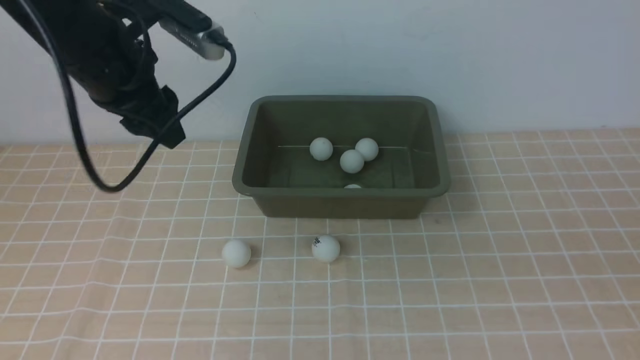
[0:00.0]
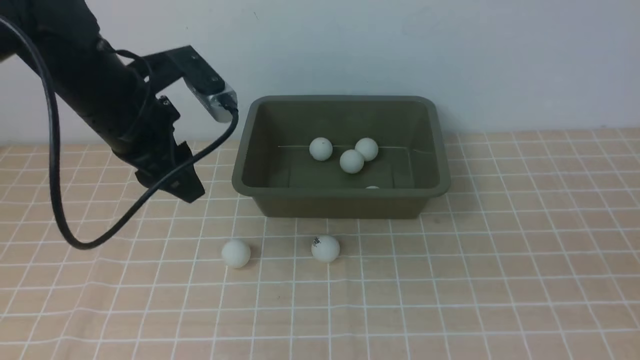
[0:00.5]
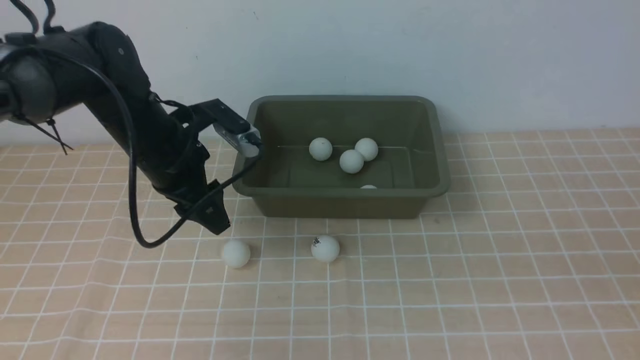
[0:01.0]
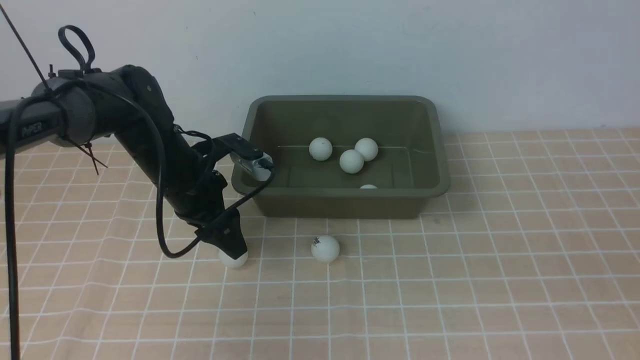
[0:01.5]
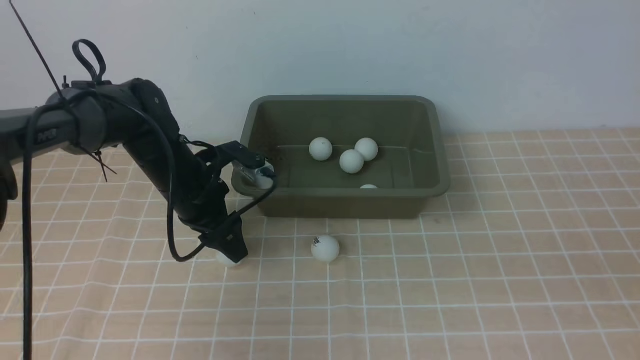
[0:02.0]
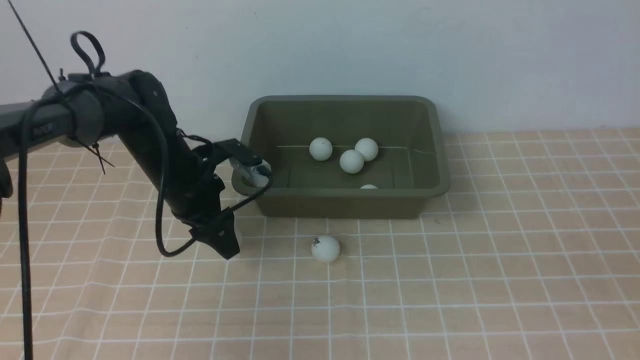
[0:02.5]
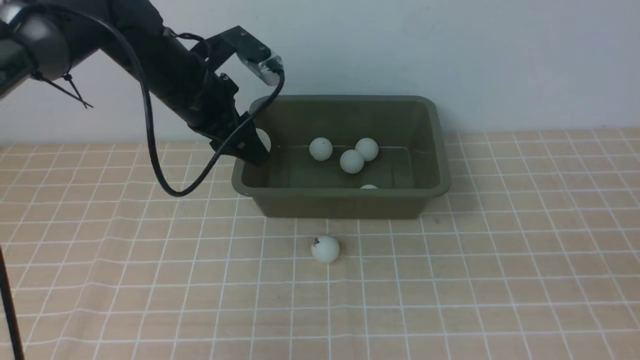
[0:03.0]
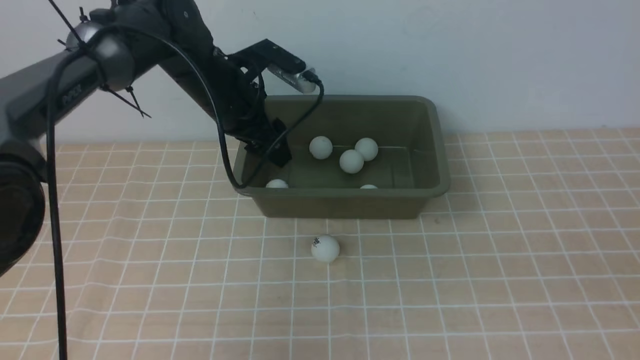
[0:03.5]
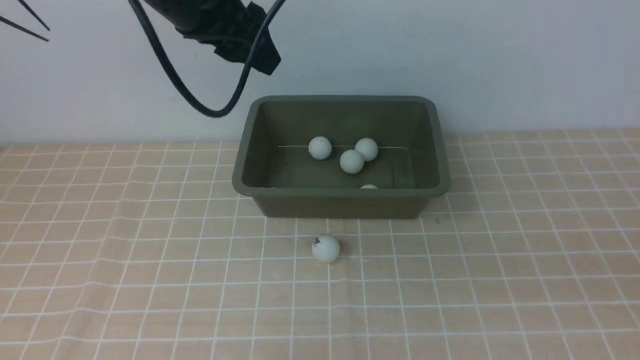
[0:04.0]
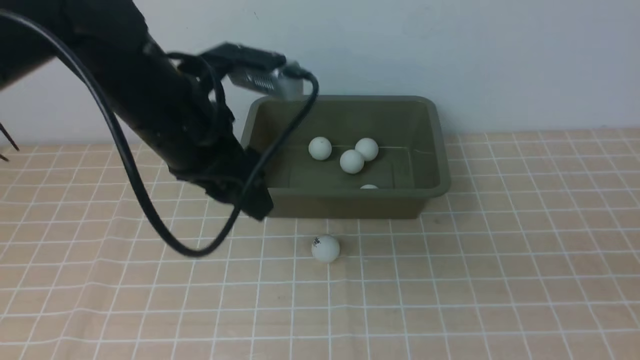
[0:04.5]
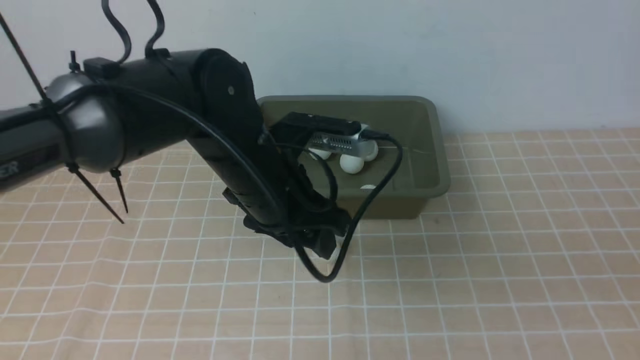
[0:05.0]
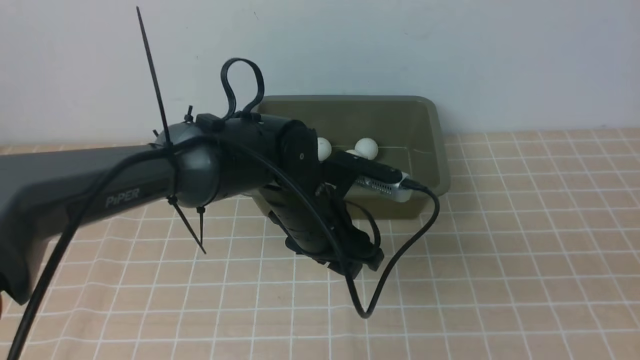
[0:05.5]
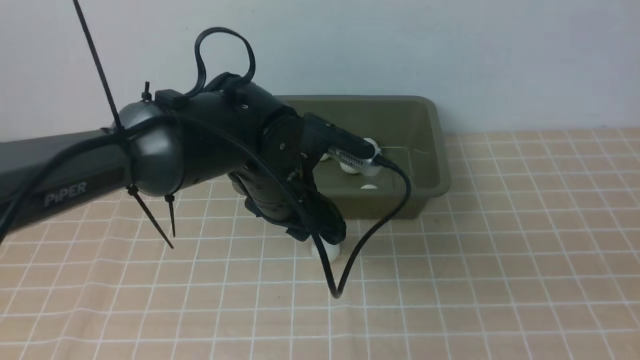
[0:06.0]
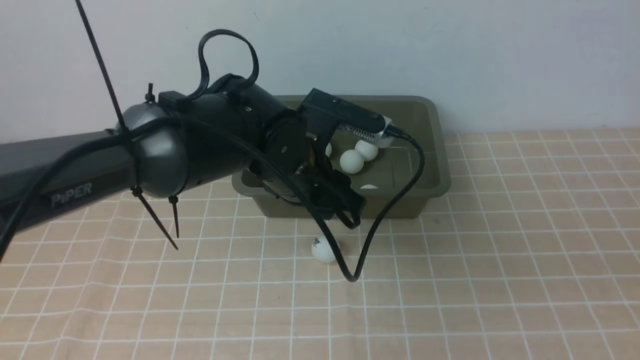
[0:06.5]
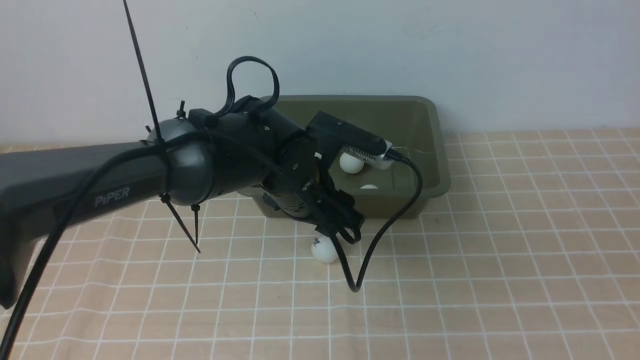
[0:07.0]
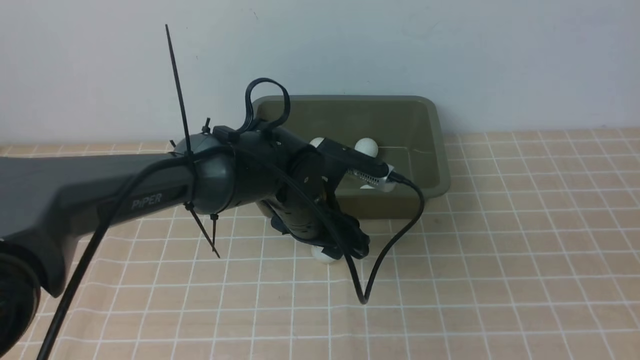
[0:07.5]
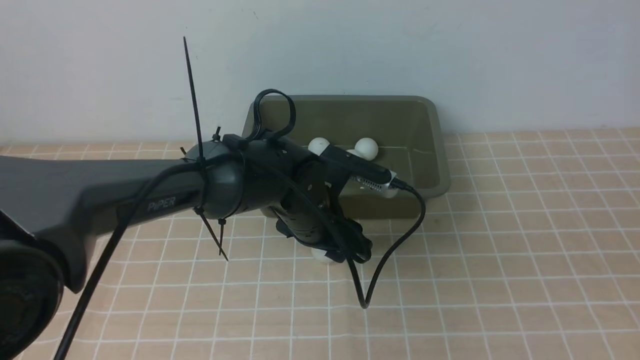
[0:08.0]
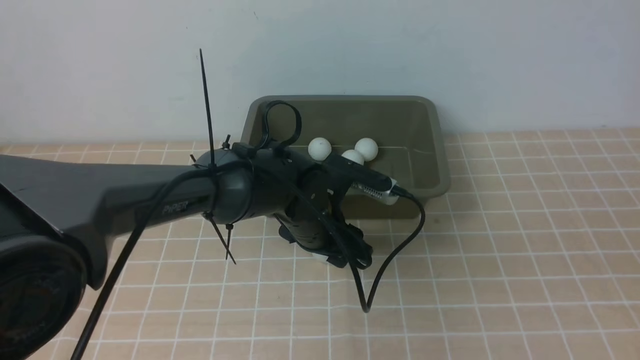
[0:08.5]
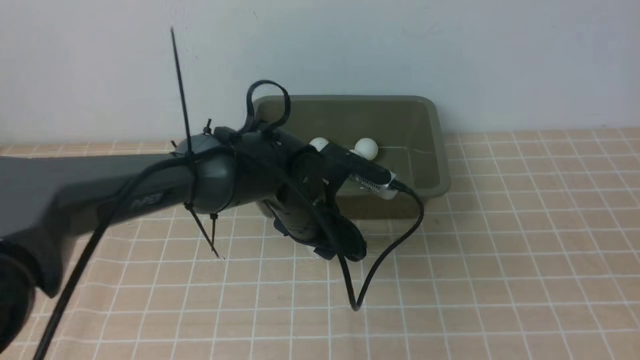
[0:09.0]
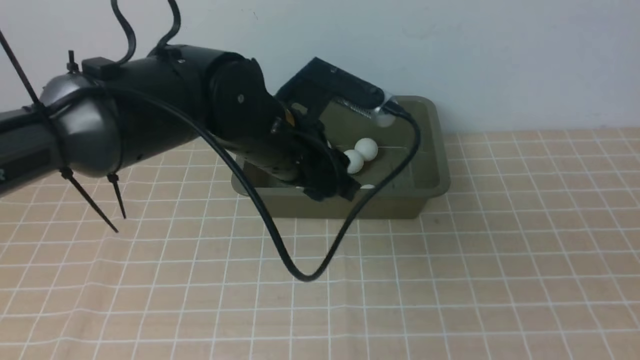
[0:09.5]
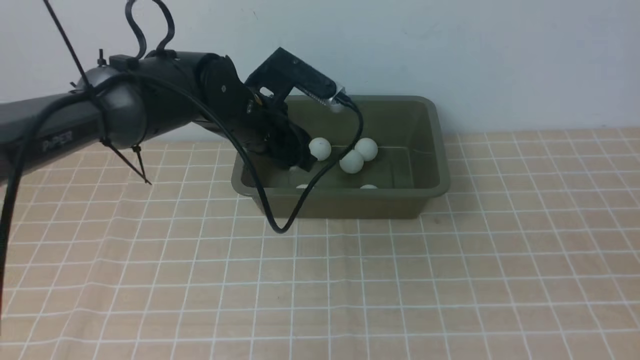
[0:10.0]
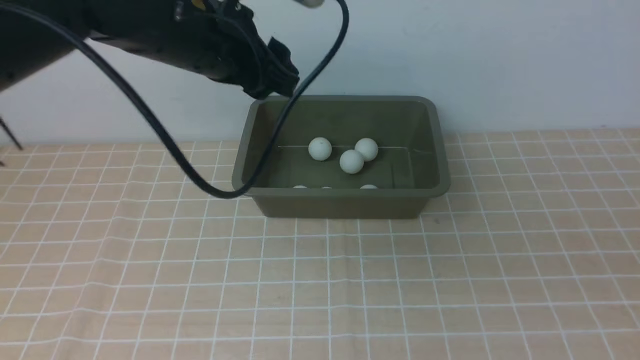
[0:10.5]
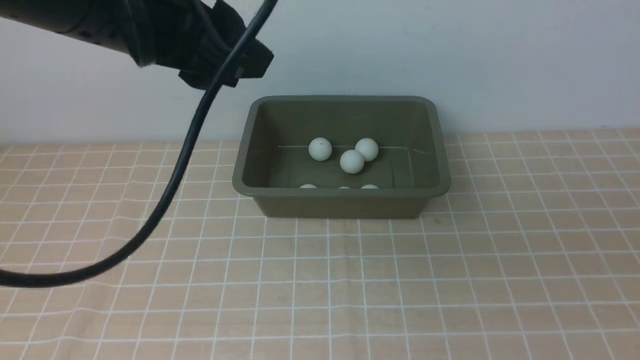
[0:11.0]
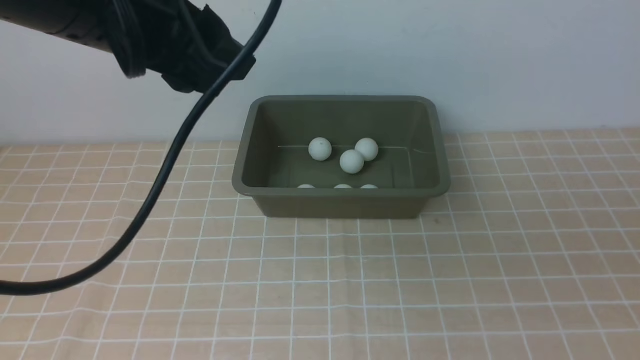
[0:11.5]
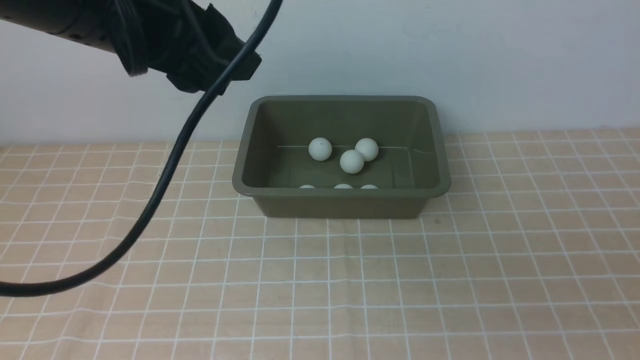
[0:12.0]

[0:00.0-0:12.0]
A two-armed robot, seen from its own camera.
Step, 0:00.0 to 0:02.5: use the left arm to clamp the table tennis ball closest to it.
Step, 0:03.0 to 0:03.5: use the left arm to put the table tennis ball into the box.
Step, 0:04.0 to 0:09.0: use the left arm to clamp the table tennis ball closest to it.
Step, 0:09.5 to 0:10.5: use the left arm to put the table tennis ball into the box.
0:00.0 to 0:02.0: The left gripper goes approximately 20 cm downward, and opens up.
0:02.0 to 0:04.0: The left gripper heads upward, covering about 25 cm, and closes, then opens again.
0:04.0 to 0:06.0: The left gripper goes some 20 cm downward and to the right, and closes its fingers.
0:06.0 to 0:08.0: The left gripper is displaced downward by some 5 cm, and opens its fingers.
0:08.0 to 0:10.0: The left gripper heads upward, to the left and forward, covering some 10 cm, and closes and opens again.
0:10.0 to 0:12.0: The left gripper heads upward and backward, covering some 25 cm, while the right gripper heads downward, covering some 5 cm, and closes its fingers.

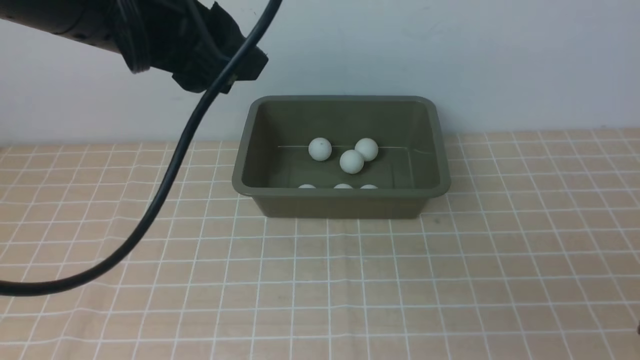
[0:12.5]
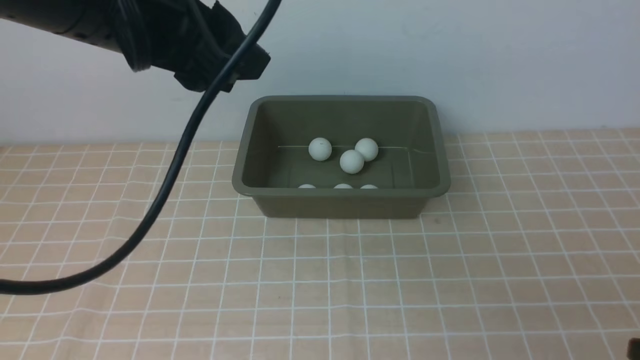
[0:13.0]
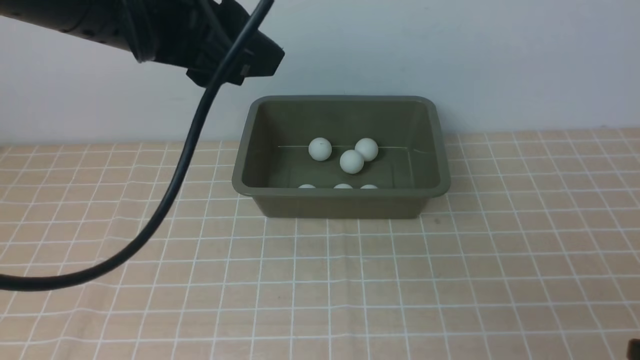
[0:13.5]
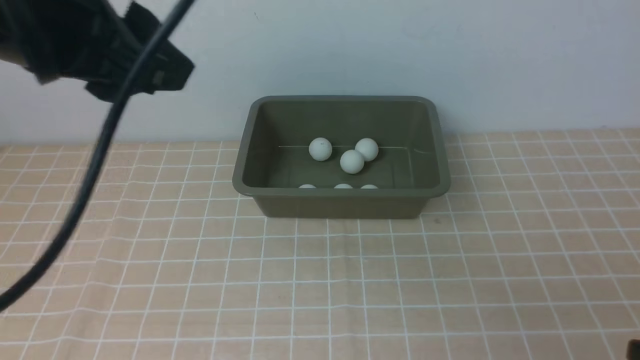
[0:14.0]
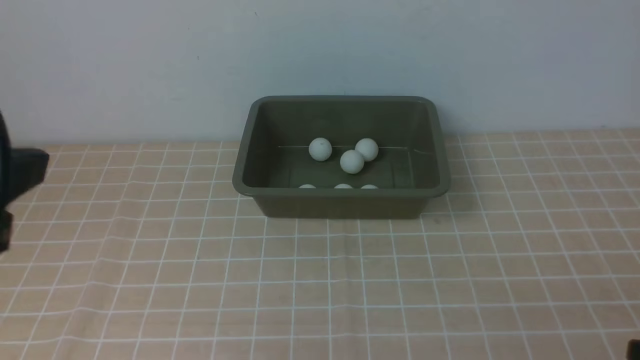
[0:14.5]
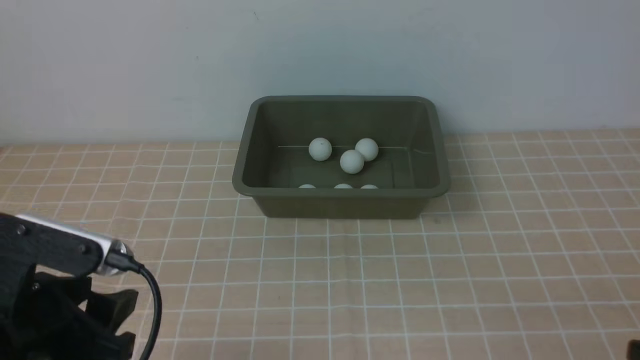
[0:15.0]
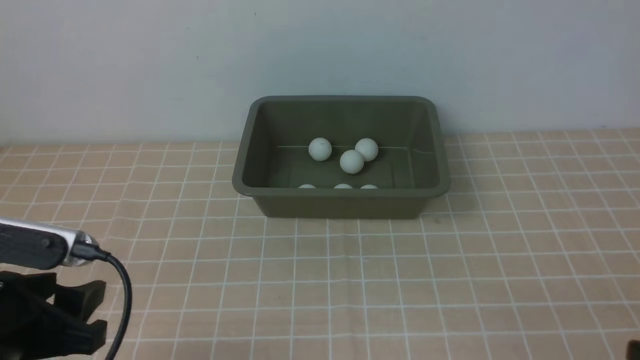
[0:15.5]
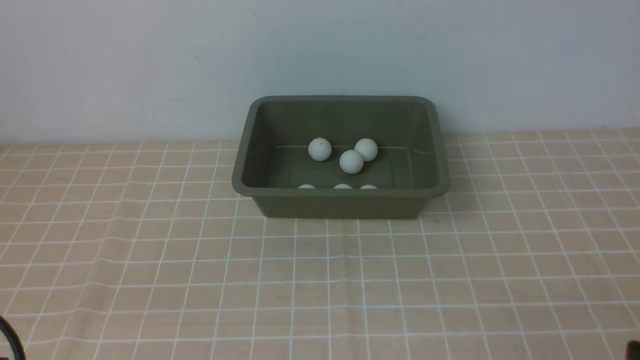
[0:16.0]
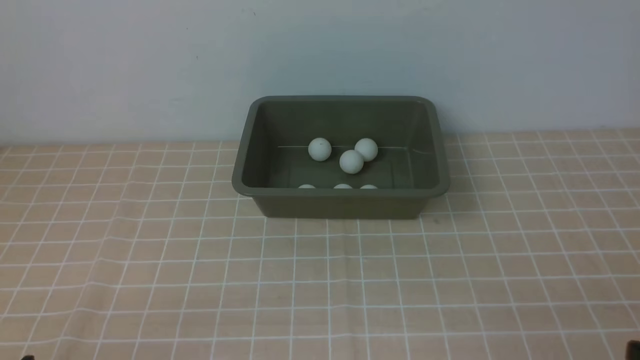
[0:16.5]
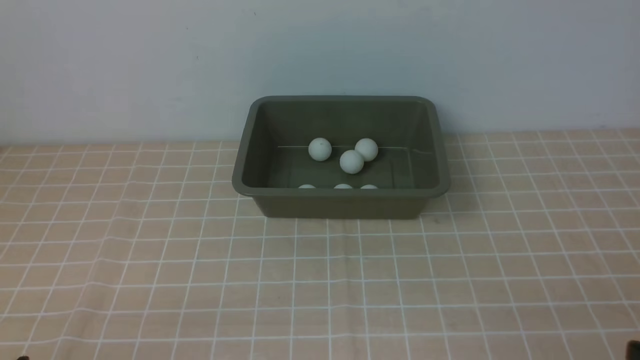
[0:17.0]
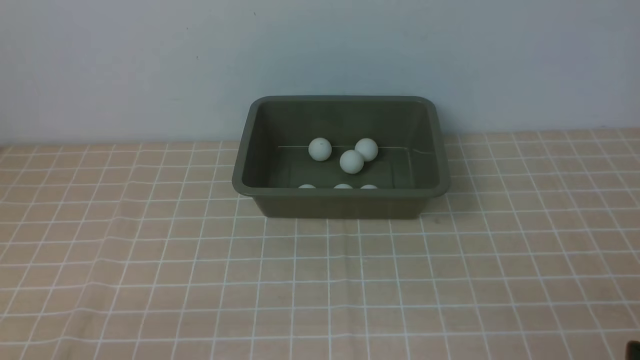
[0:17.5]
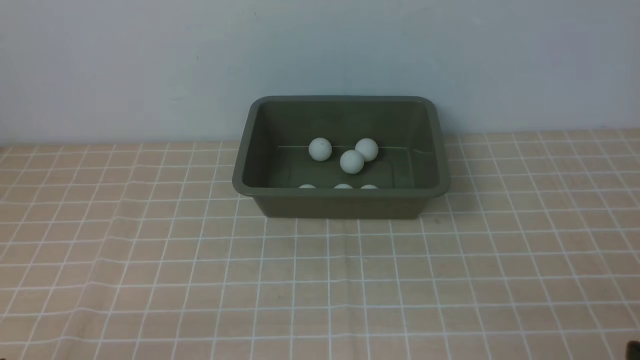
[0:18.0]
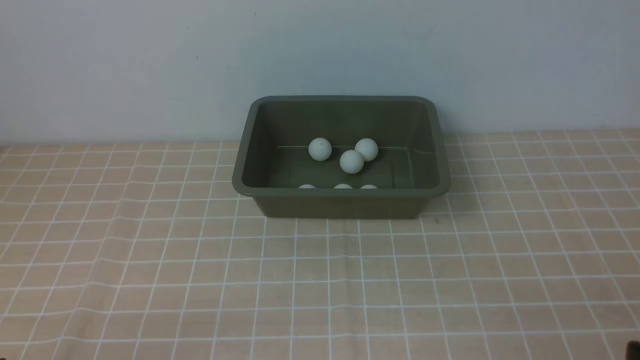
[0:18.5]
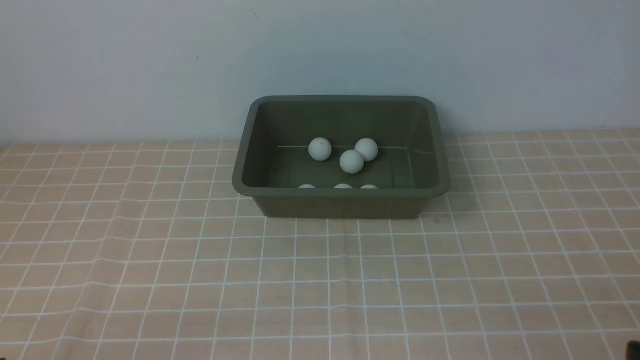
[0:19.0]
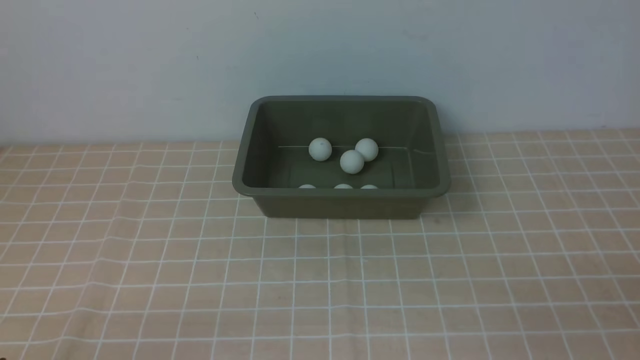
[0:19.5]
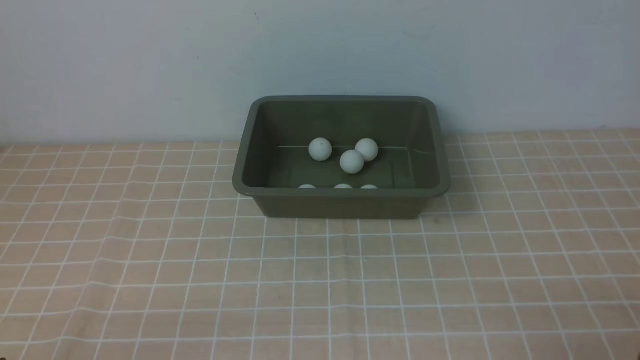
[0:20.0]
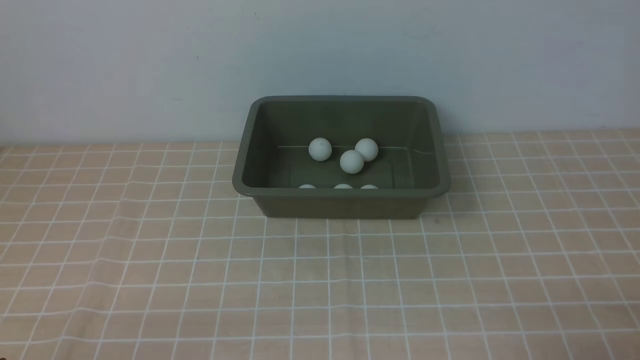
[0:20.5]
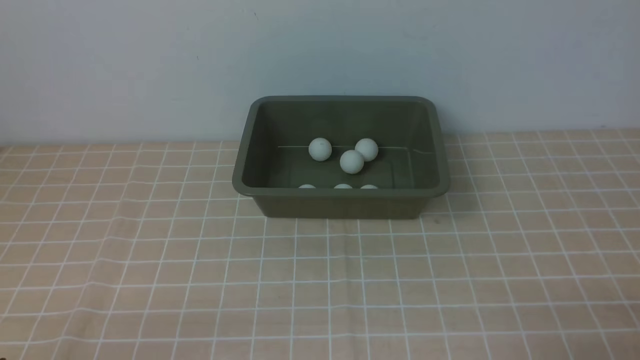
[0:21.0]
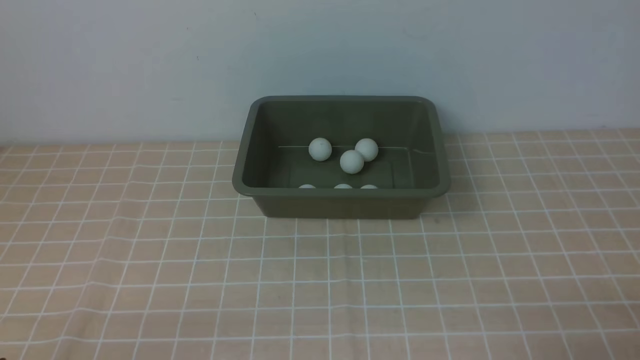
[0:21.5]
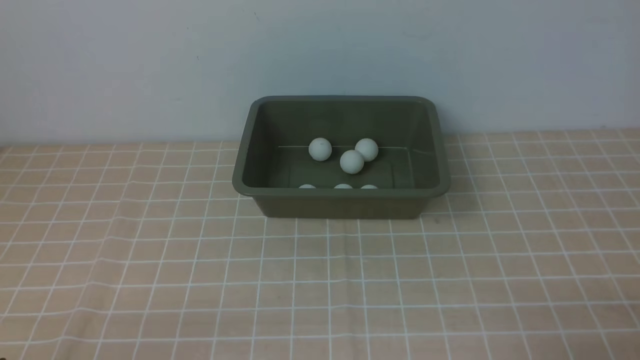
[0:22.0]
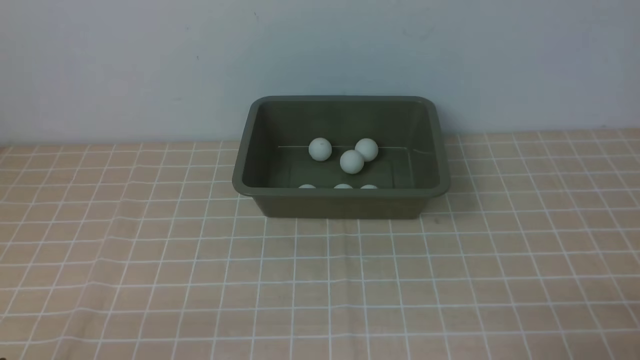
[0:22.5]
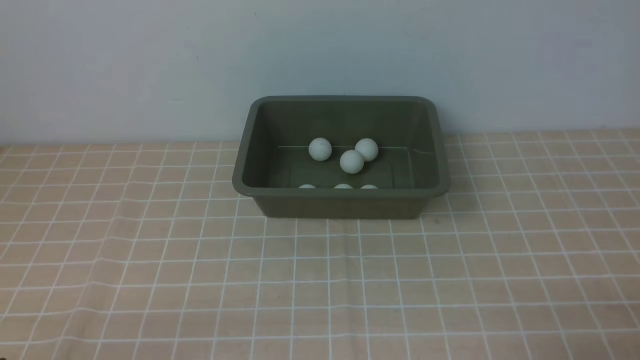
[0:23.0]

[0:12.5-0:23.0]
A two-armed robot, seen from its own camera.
0:12.5 to 0:14.5: The left gripper shifts about 15 cm backward and to the left.
0:14.5 to 0:16.5: The left gripper goes about 20 cm downward.
0:21.0 to 0:23.0: Both grippers stay put.
